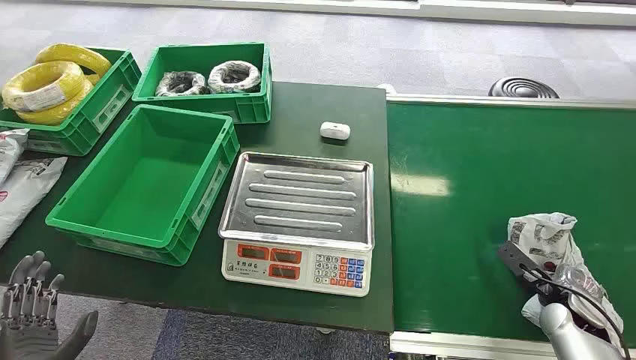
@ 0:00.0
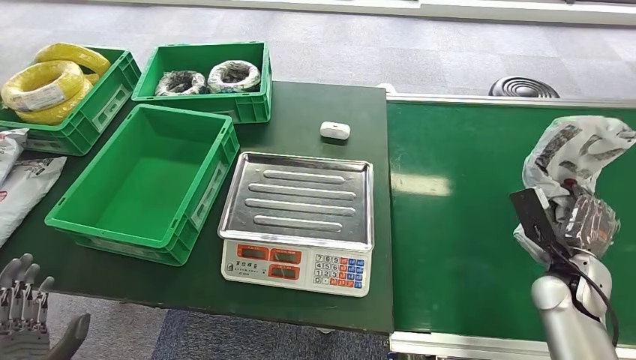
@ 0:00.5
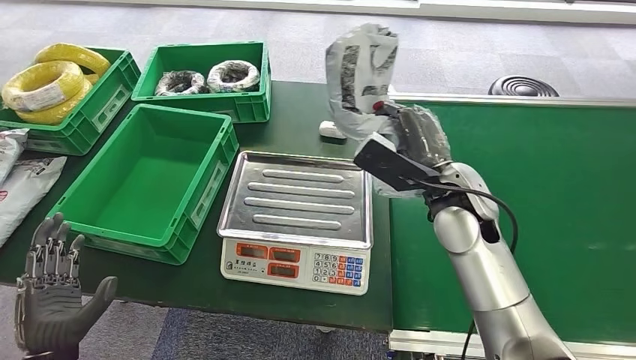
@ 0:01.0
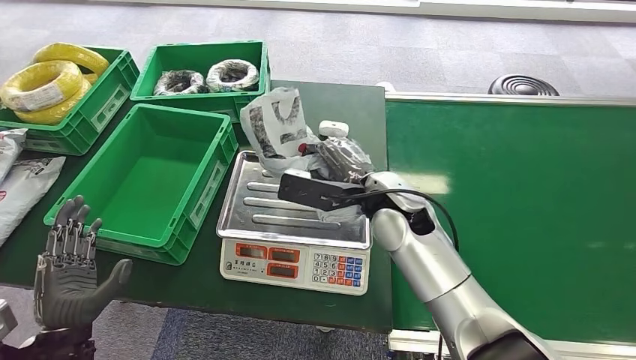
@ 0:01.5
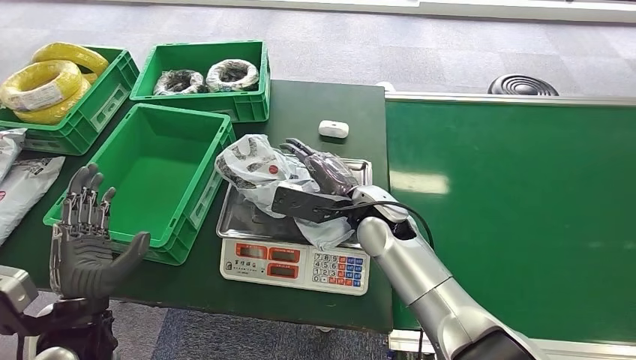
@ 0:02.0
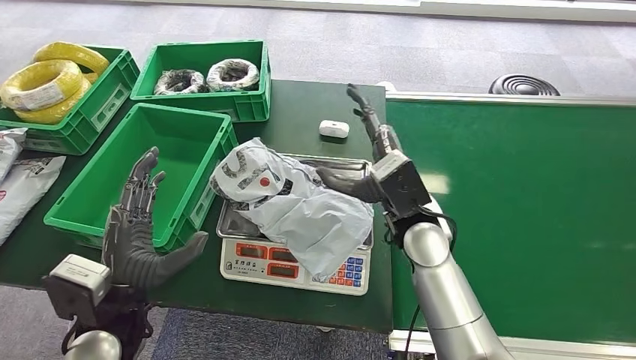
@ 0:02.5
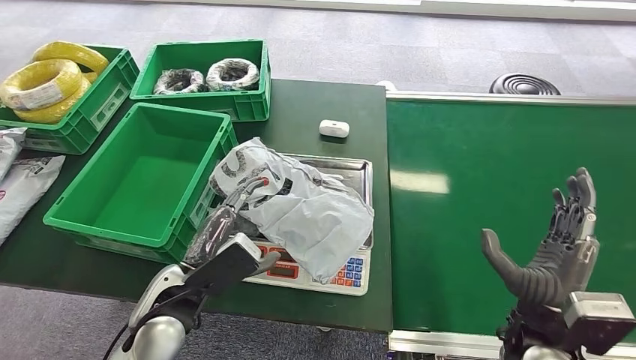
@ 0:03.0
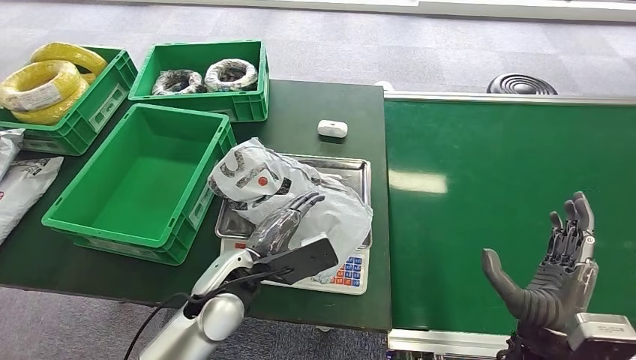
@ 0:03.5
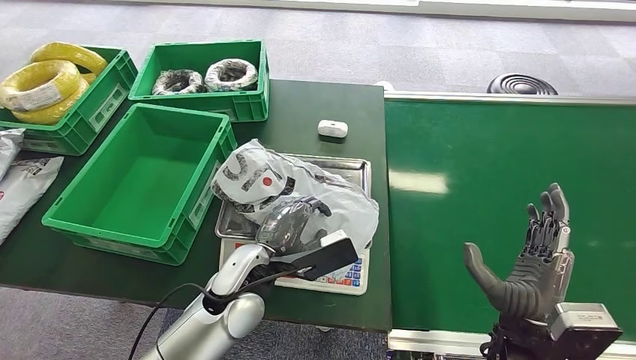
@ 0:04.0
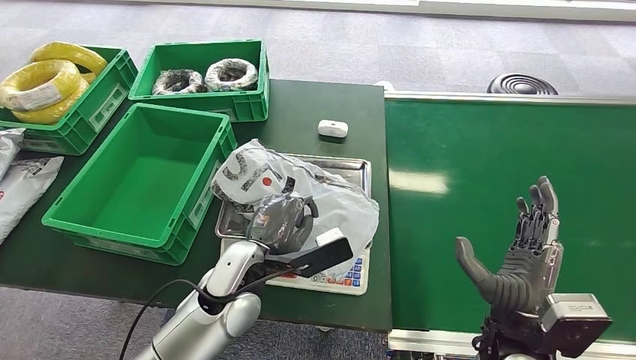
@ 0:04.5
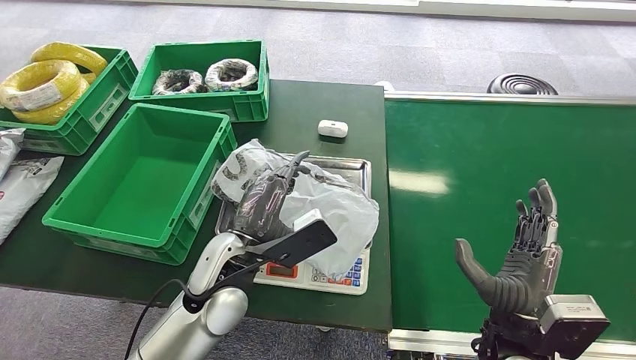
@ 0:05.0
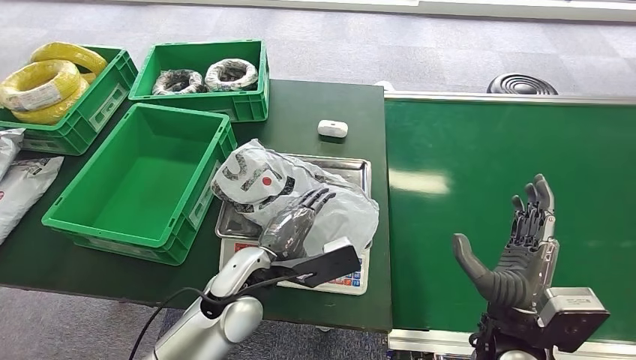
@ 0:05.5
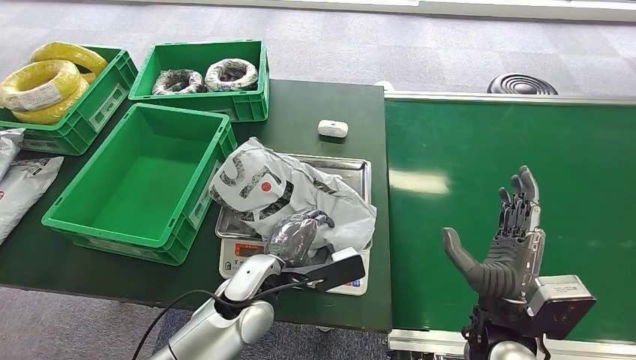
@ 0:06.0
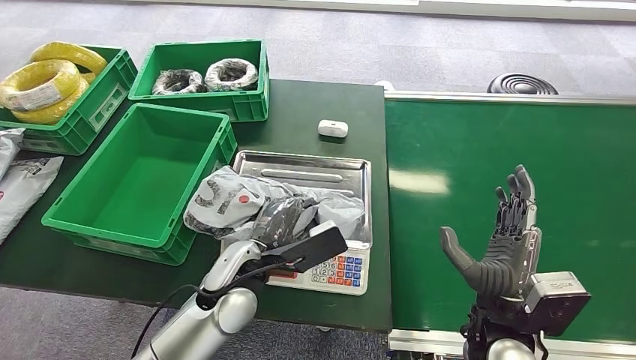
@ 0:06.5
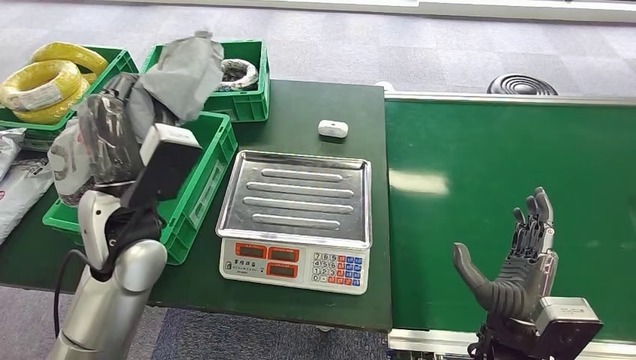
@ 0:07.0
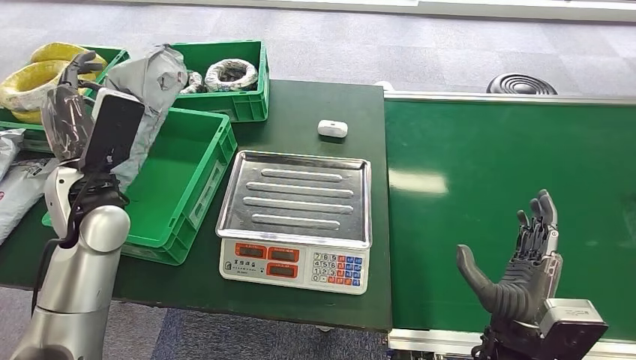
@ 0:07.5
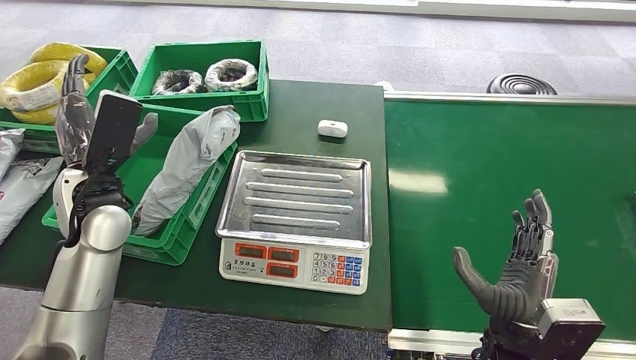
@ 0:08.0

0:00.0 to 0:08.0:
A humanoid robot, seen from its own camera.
Step, 0:00.0 to 0:00.5: Pick up the package from the conveyor belt.
Step, 0:01.0 to 0:02.0: Place the package onto the inbound machine.
Step, 0:03.0 to 0:06.5: Pick up the package from the inbound machine.
Step, 0:07.0 to 0:08.0: Place the package into the parcel locker.
0:04.0 to 0:06.0: There are only small adjustments of the hands.
